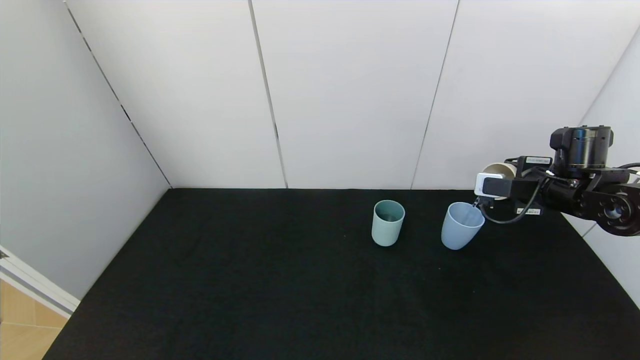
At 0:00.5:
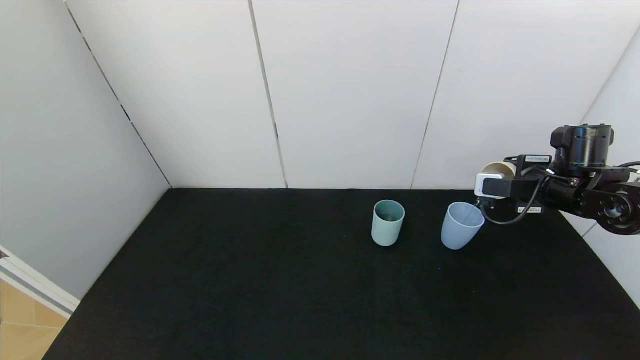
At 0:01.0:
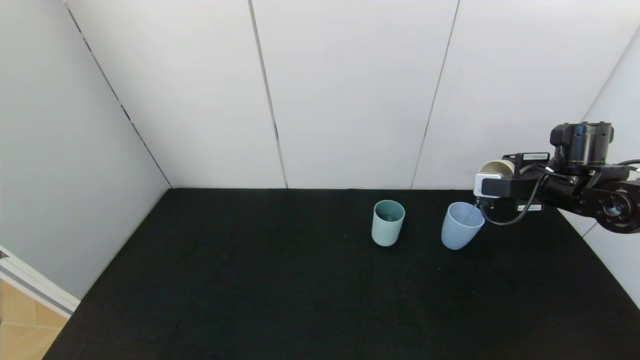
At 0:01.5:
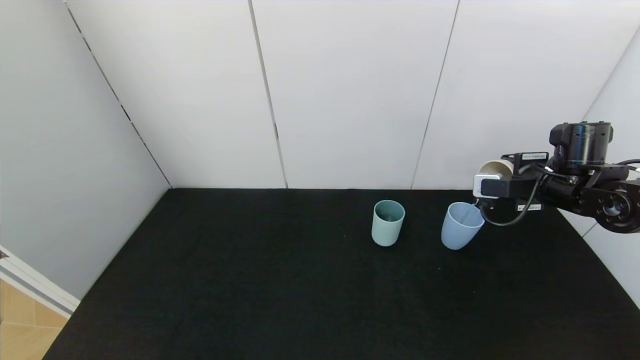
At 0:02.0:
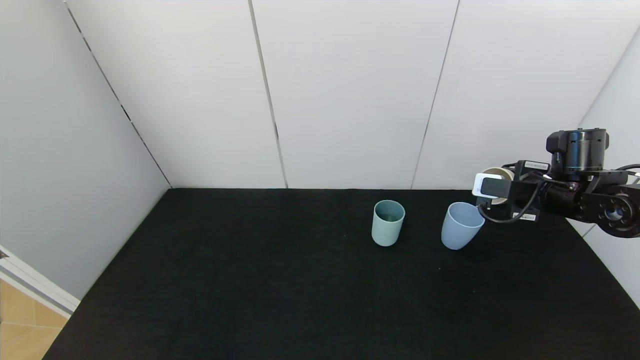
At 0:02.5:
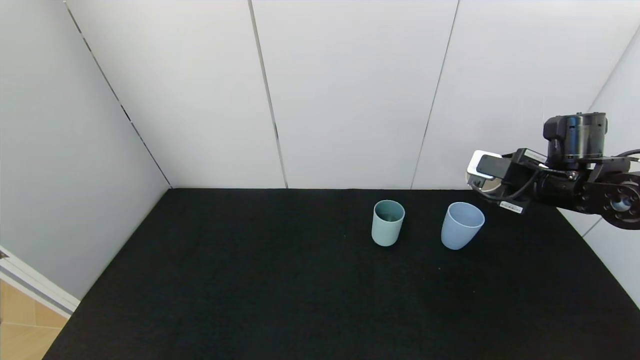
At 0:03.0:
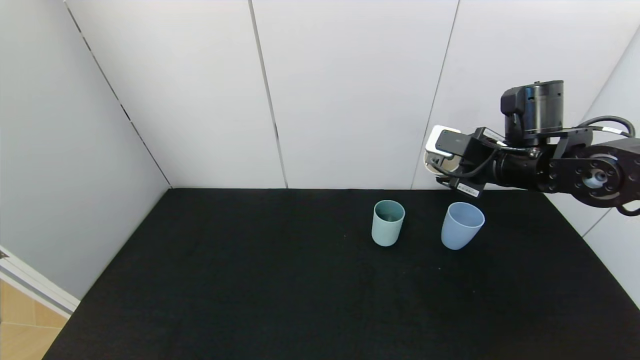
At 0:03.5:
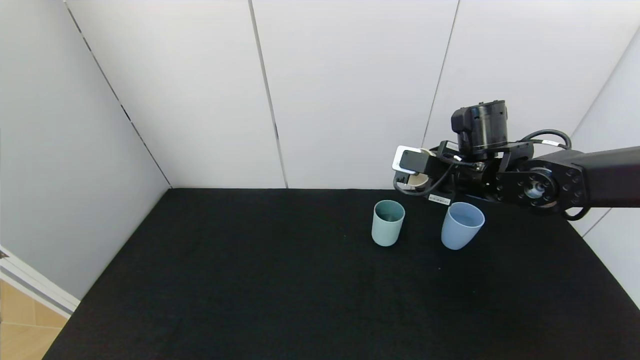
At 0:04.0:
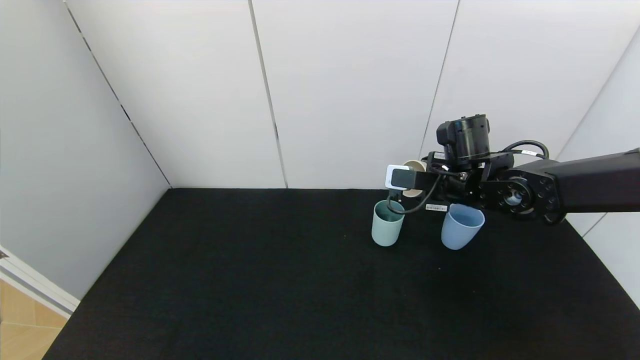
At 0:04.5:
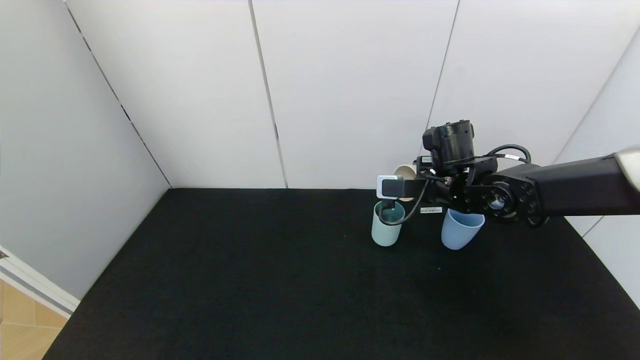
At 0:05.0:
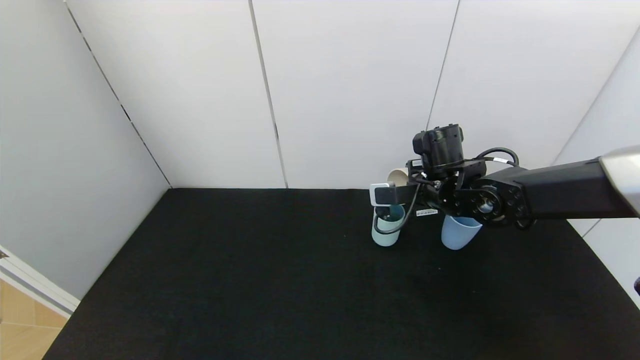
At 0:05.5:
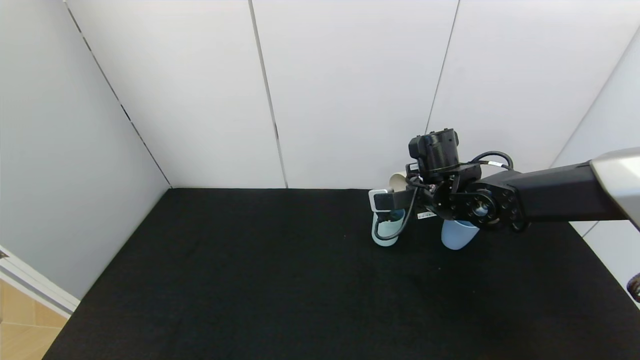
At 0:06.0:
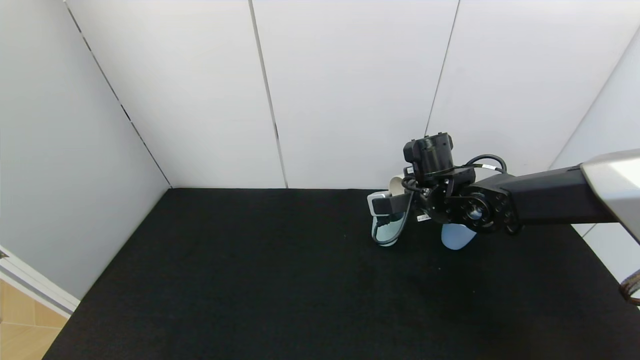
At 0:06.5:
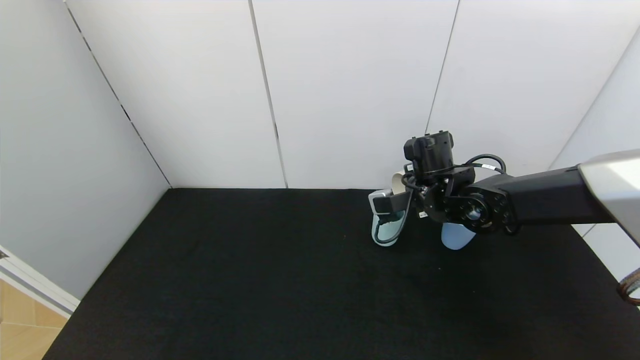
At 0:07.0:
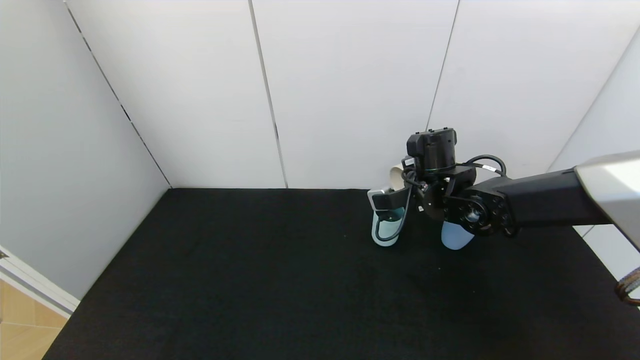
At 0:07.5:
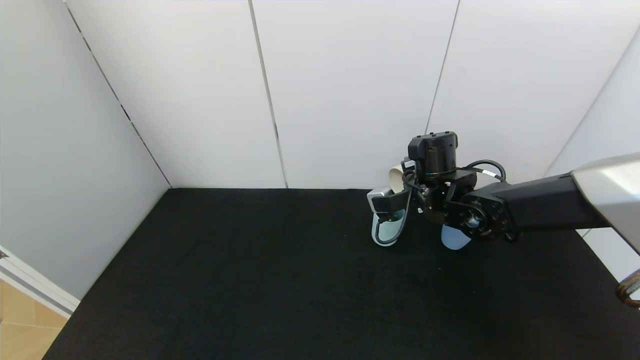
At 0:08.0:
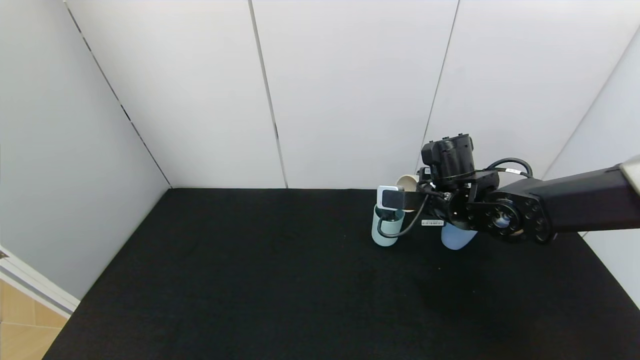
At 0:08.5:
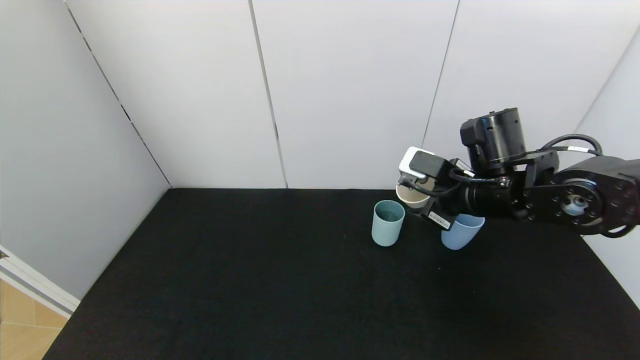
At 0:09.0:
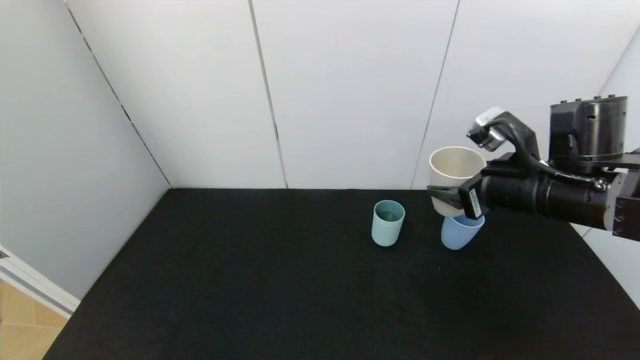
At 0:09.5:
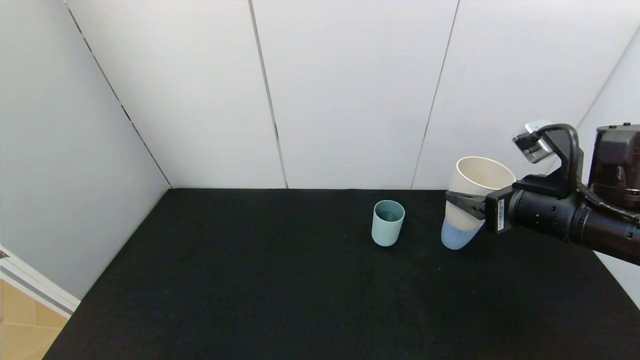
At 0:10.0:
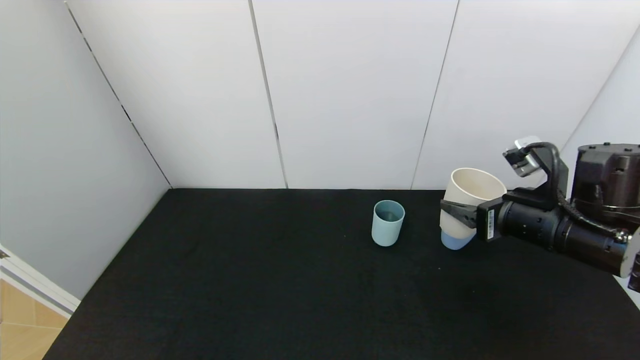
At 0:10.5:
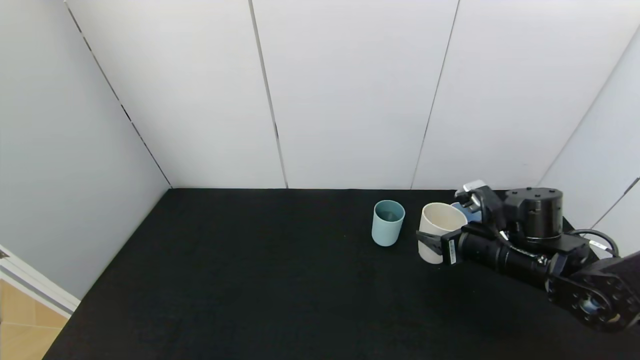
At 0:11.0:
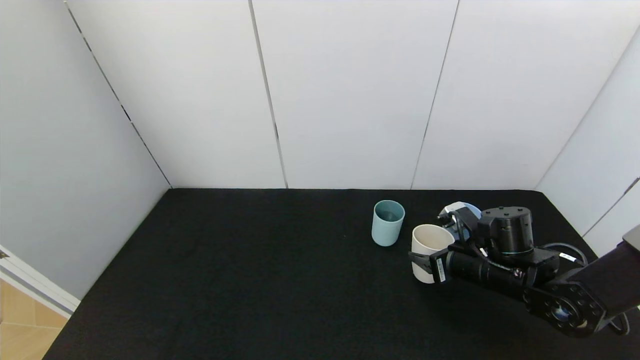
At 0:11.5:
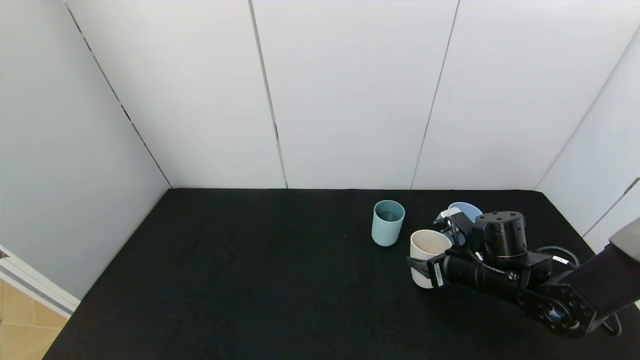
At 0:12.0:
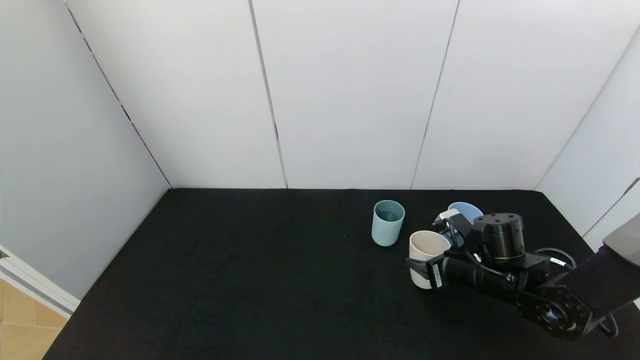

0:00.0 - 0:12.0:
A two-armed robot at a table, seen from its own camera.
Task of the whole recording: use the gripper to pour the water into the other two cups on black table.
Step, 0:00.0 - 0:02.5: Pour water from white cup to blue cup with the right gripper.
Step, 0:03.0 - 0:08.5: Pour water from white cup to green cup with the right gripper.
0:00.0 - 0:02.0: The grippers stay close to where they were, moving slightly.
0:02.0 - 0:04.0: The right gripper shifts roughly 15 cm to the left.
0:06.0 - 0:08.0: The grippers stay close to where they were, moving slightly.
0:08.0 - 0:10.0: The right gripper goes some 15 cm backward and to the right.
0:10.0 - 0:12.0: The right gripper shifts approximately 15 cm downward.

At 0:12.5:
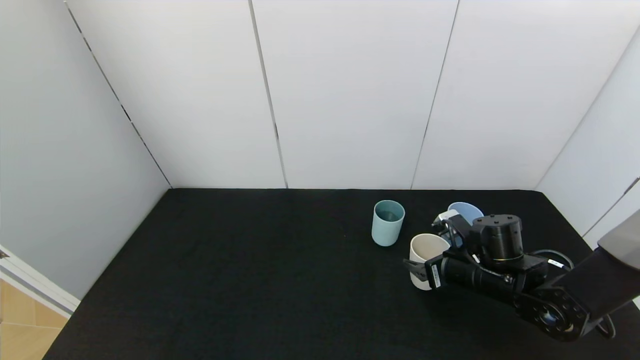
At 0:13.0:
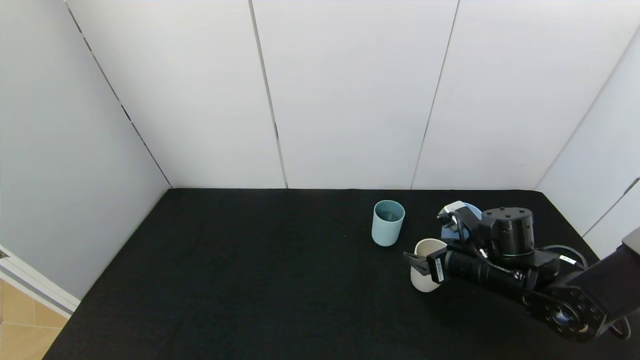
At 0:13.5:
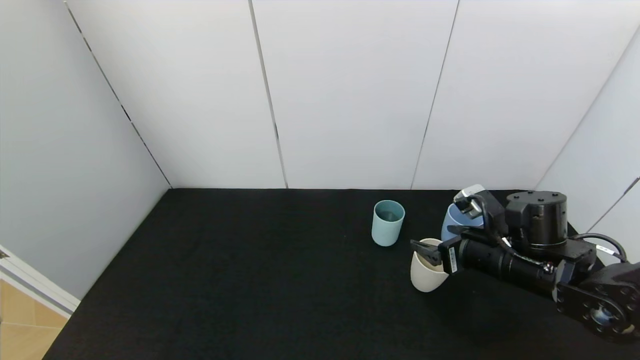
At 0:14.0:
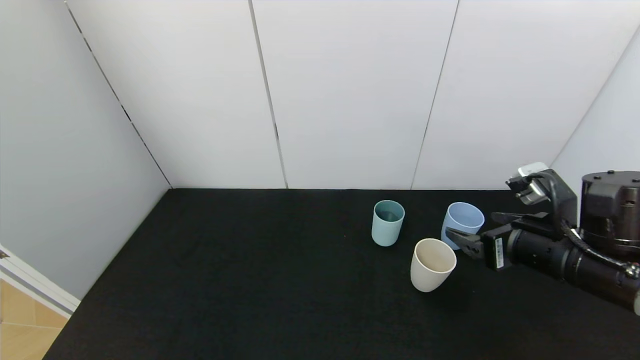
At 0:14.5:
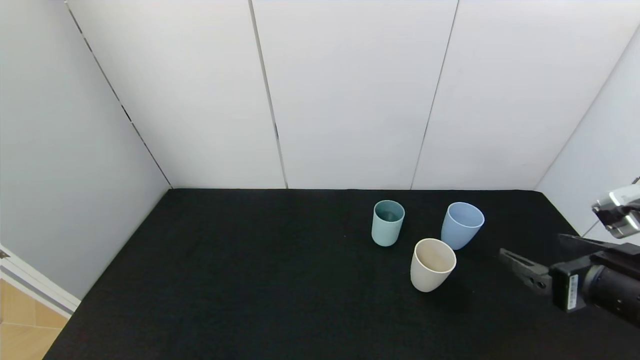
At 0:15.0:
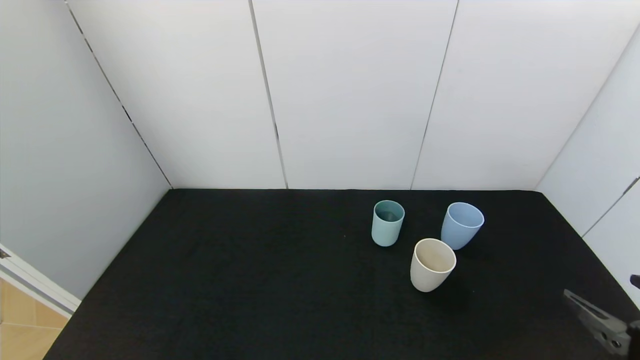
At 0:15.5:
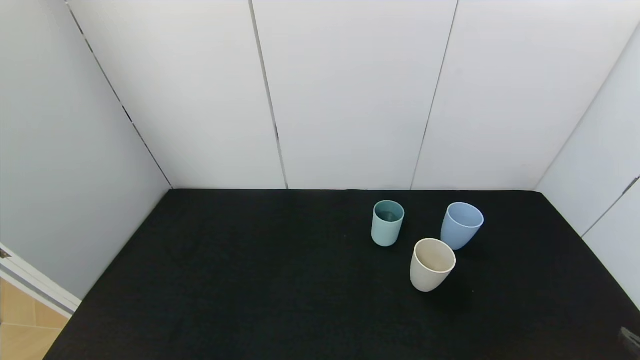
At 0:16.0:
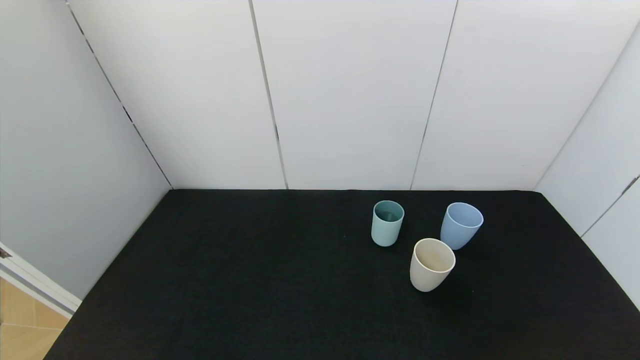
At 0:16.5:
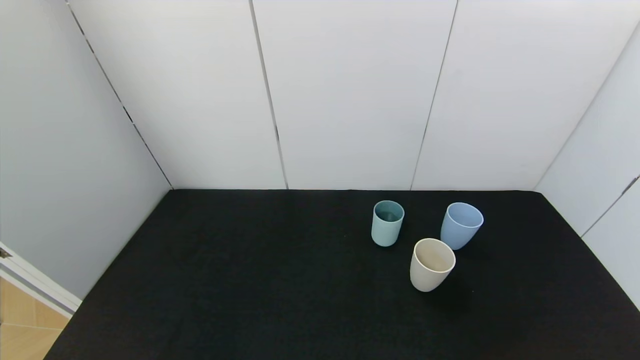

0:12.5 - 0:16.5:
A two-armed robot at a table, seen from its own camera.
Task of the whole recording: use the gripper to pour the water into the other two cups on black table.
0:12.5 - 0:14.5: The right gripper goes approximately 20 cm backward, upward and to the right.
0:14.5 - 0:16.5: The right gripper is displaced backward and downward by some 20 cm.

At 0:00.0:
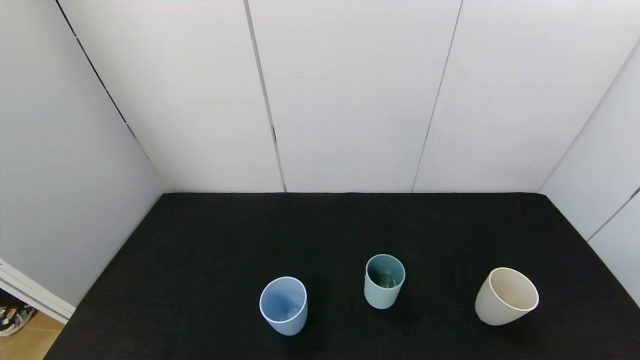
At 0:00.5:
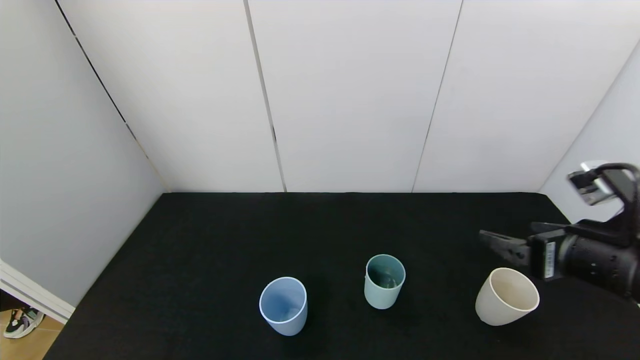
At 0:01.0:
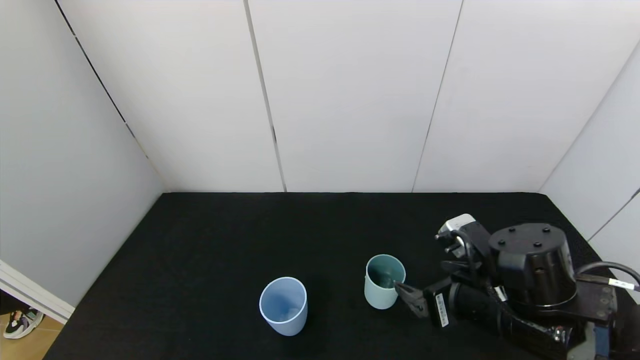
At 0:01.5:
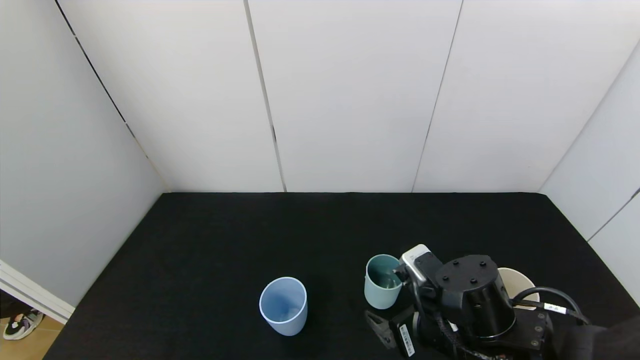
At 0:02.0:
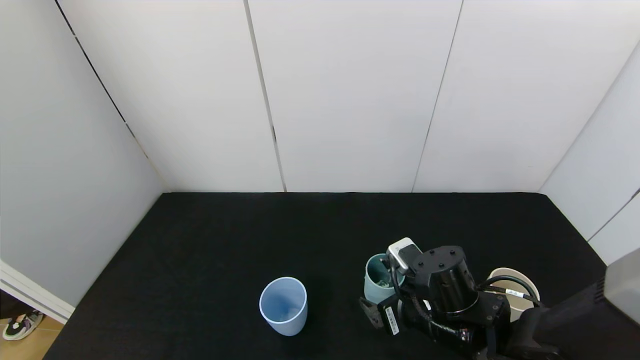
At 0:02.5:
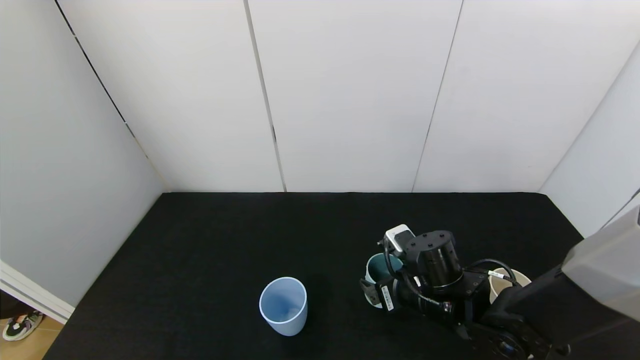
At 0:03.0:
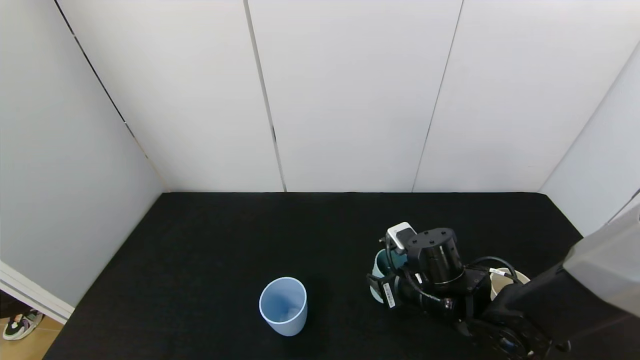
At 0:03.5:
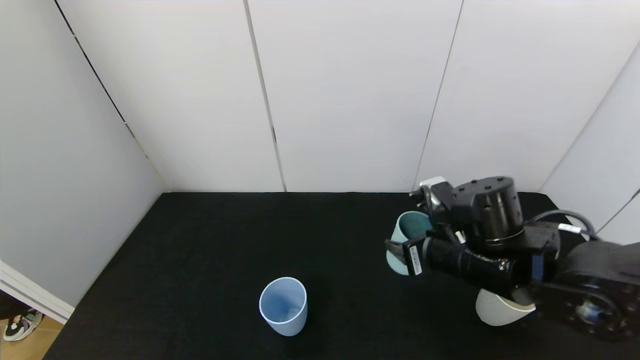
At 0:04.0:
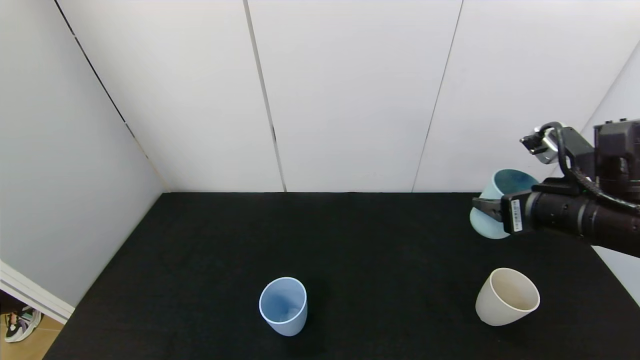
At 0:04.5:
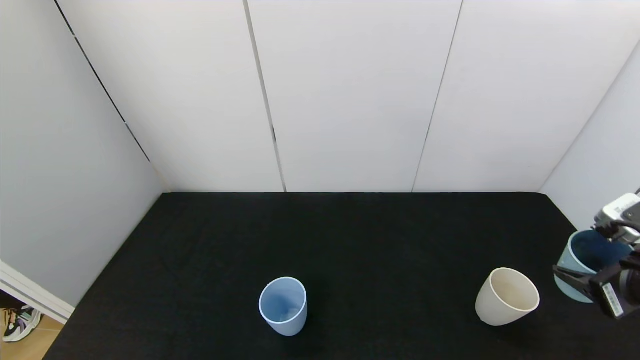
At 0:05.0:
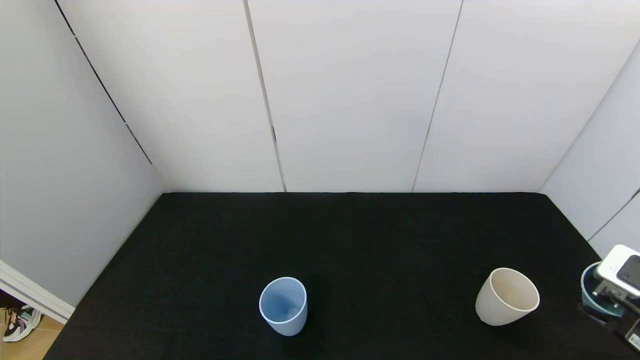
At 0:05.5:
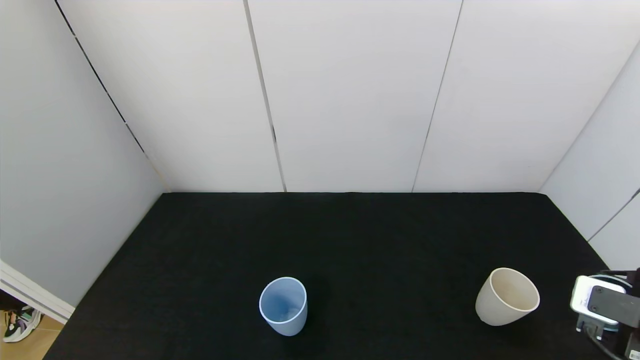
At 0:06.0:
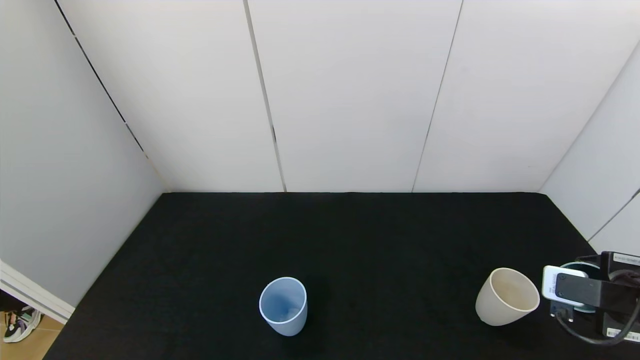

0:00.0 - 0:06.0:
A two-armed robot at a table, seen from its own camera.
Task of the whole recording: use the gripper to pour the water into the other two cups on black table.
Step, 0:00.0 - 0:03.0: Grasp the green cup with the right gripper.
0:00.0 - 0:02.0: The right gripper is displaced to the left, forward and downward by about 35 cm.
0:02.0 - 0:04.0: The right gripper heads upward and to the right, covering approximately 20 cm, and closes.
0:04.0 - 0:06.0: The right gripper shifts some 10 cm downward, to the right and backward.
